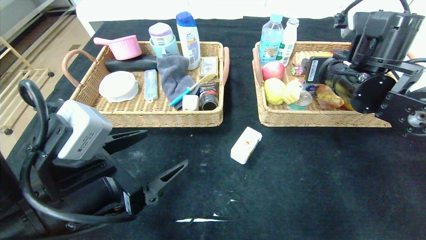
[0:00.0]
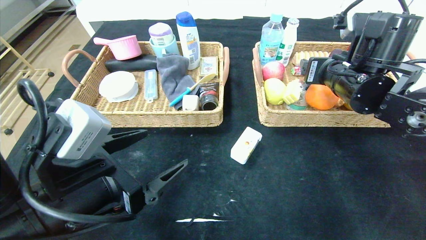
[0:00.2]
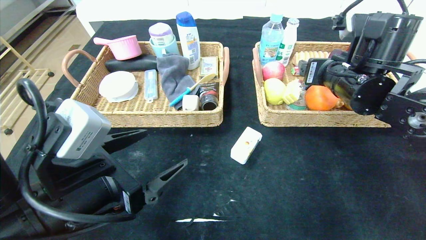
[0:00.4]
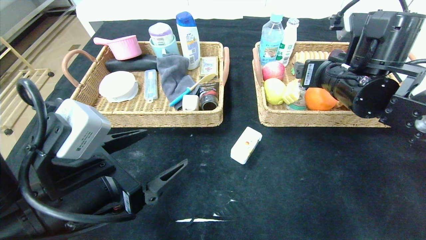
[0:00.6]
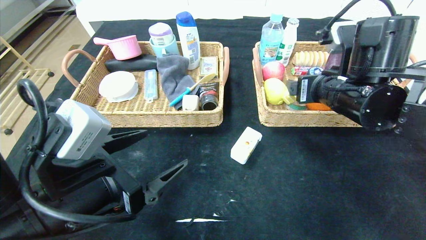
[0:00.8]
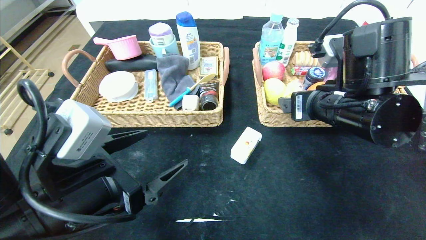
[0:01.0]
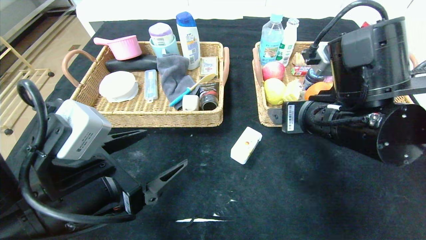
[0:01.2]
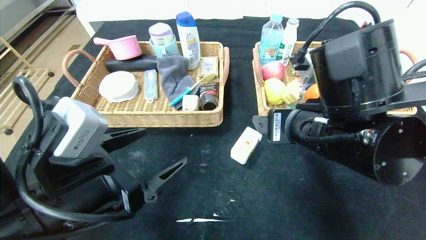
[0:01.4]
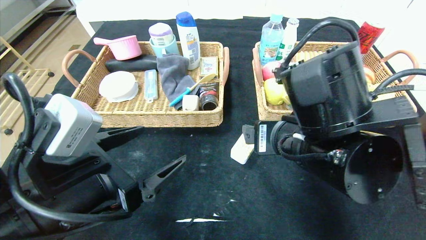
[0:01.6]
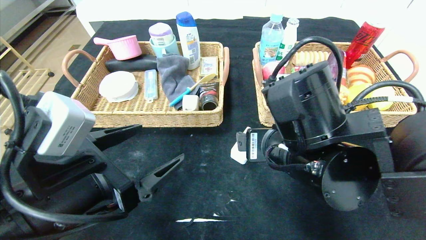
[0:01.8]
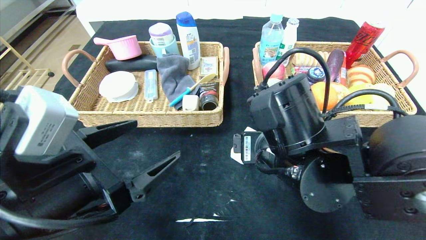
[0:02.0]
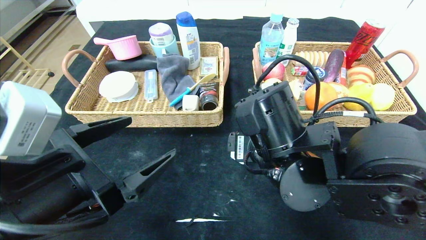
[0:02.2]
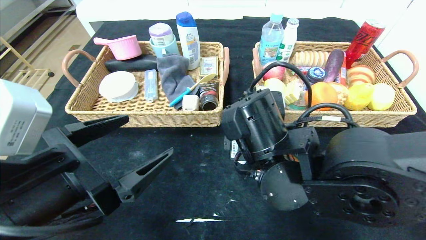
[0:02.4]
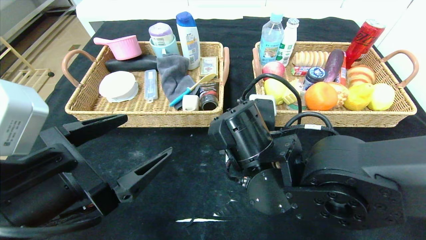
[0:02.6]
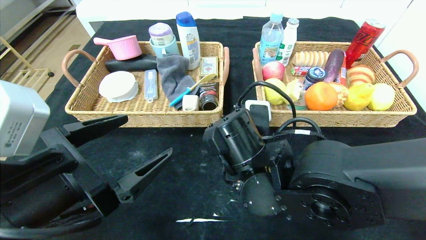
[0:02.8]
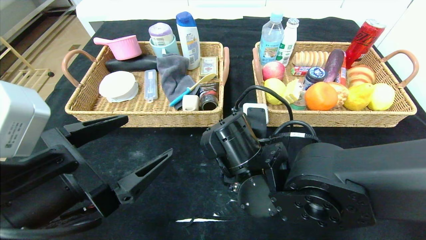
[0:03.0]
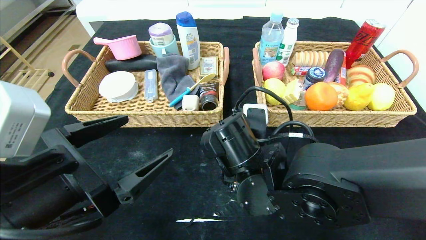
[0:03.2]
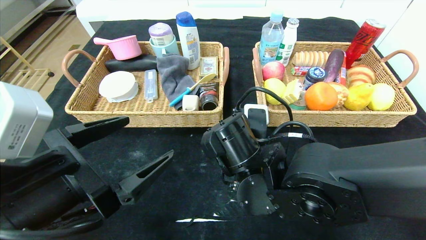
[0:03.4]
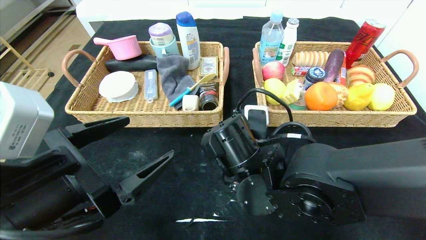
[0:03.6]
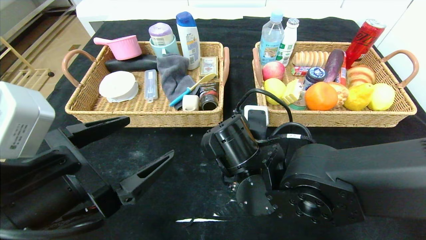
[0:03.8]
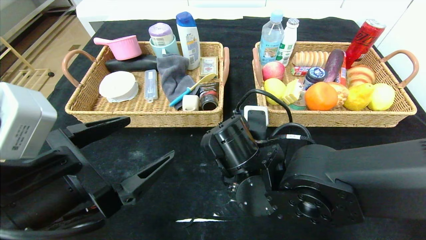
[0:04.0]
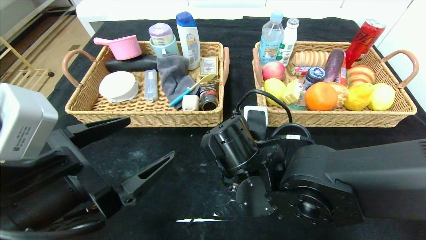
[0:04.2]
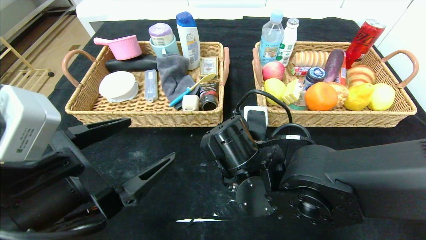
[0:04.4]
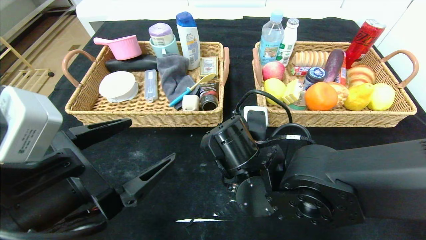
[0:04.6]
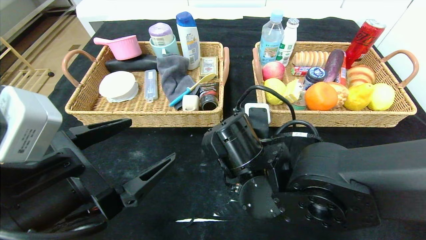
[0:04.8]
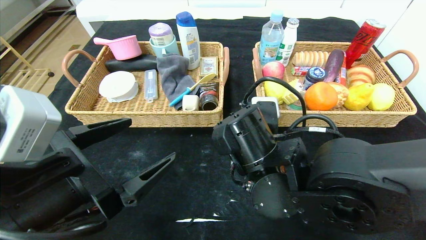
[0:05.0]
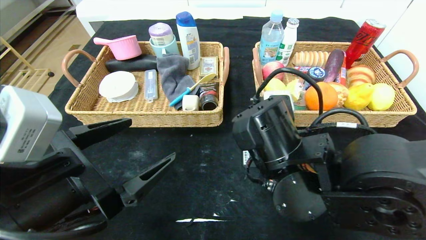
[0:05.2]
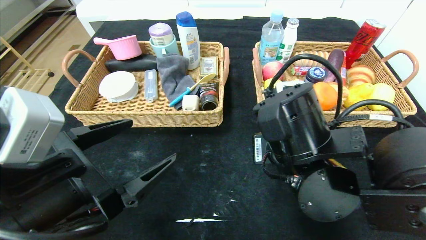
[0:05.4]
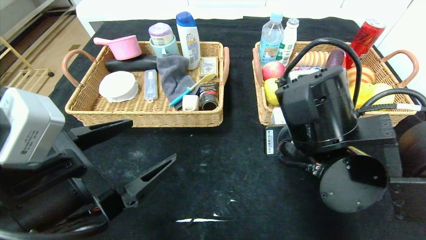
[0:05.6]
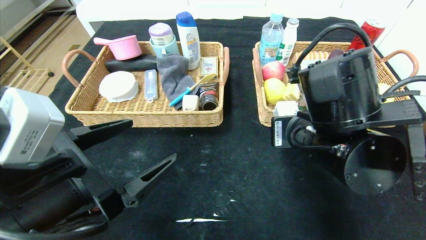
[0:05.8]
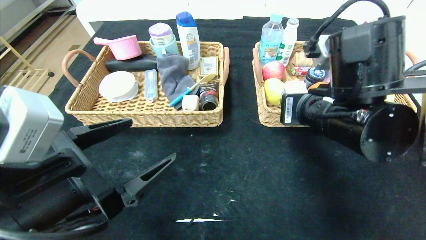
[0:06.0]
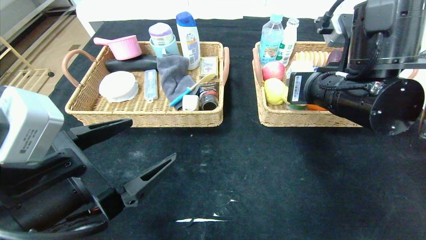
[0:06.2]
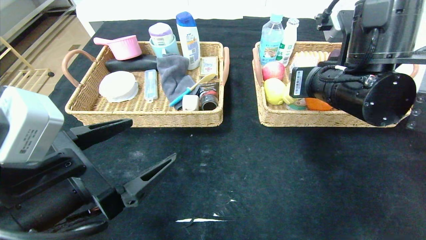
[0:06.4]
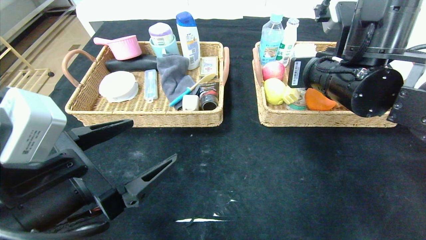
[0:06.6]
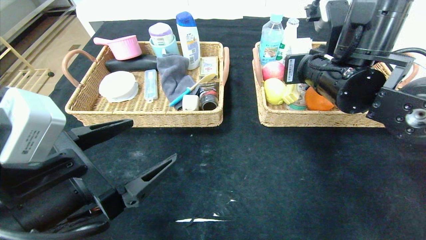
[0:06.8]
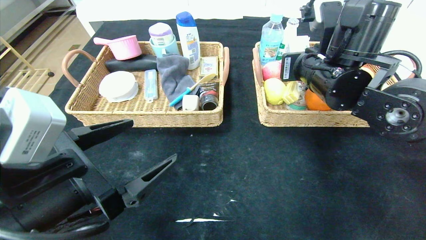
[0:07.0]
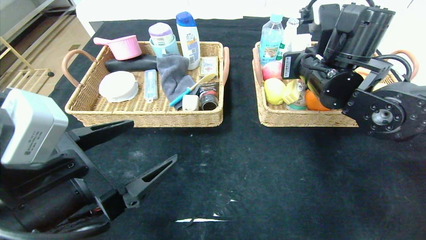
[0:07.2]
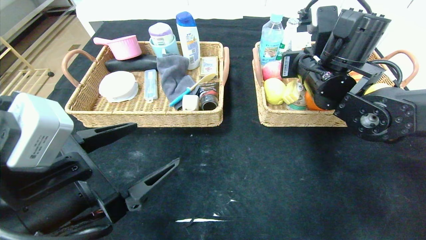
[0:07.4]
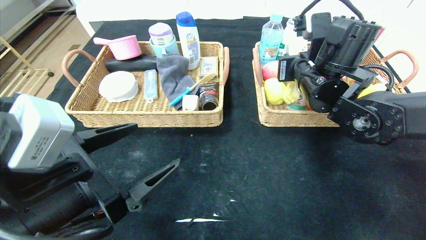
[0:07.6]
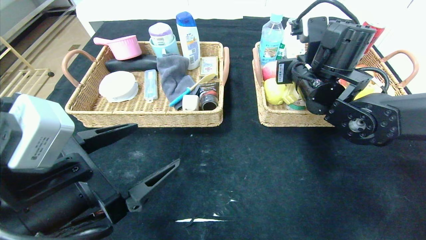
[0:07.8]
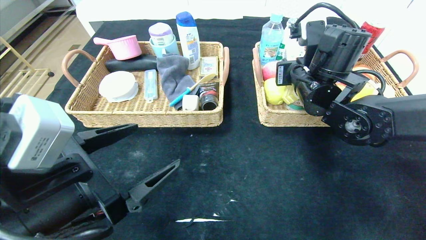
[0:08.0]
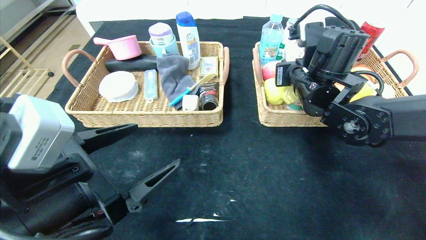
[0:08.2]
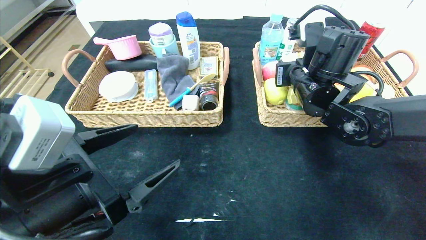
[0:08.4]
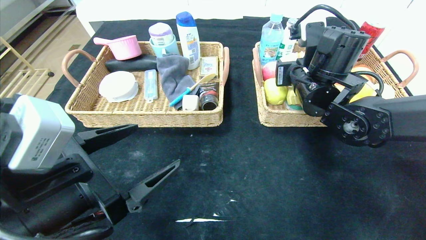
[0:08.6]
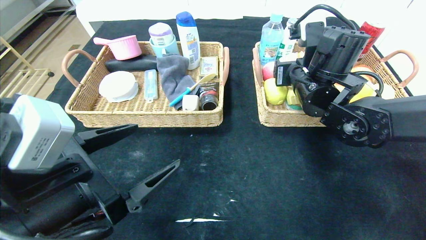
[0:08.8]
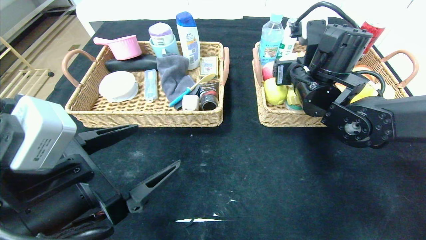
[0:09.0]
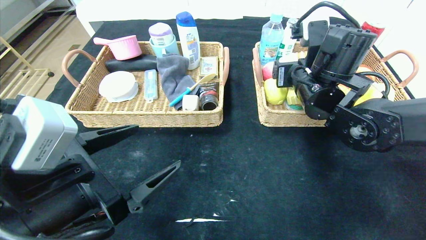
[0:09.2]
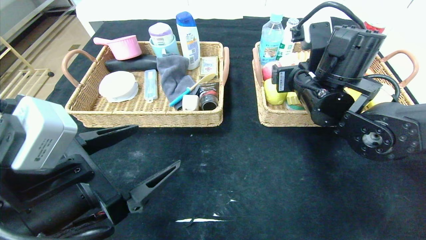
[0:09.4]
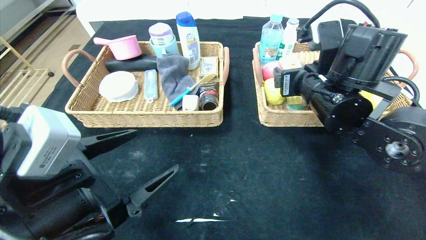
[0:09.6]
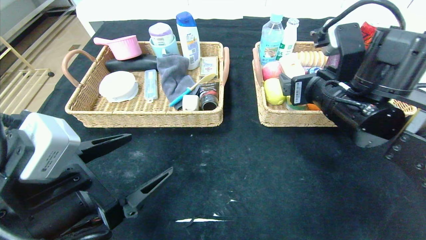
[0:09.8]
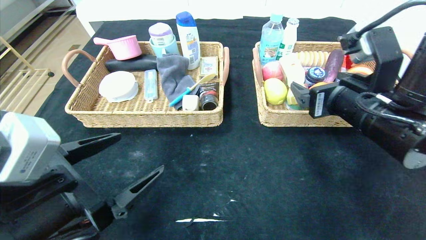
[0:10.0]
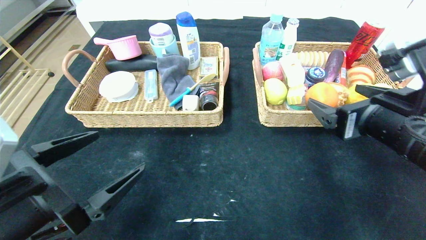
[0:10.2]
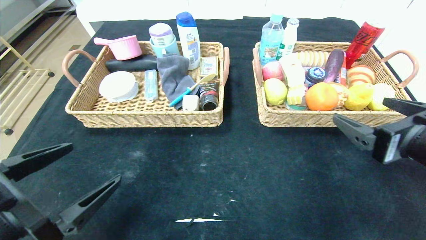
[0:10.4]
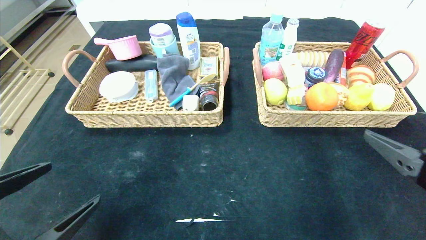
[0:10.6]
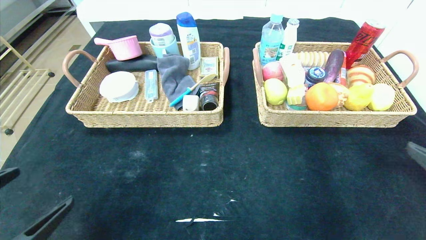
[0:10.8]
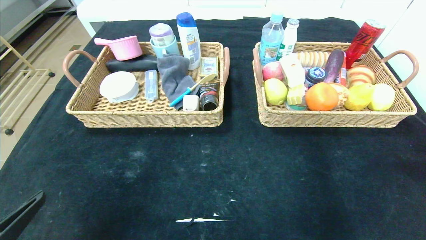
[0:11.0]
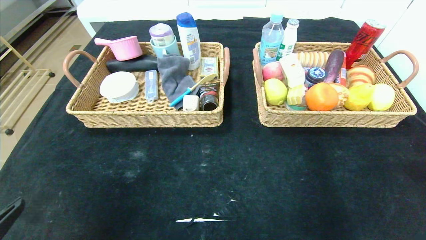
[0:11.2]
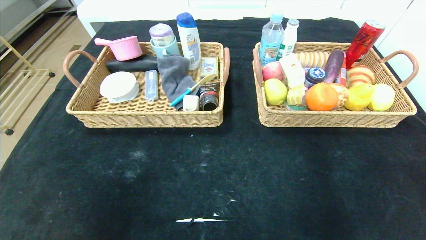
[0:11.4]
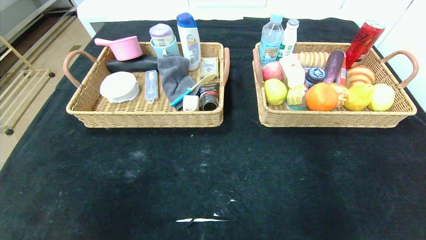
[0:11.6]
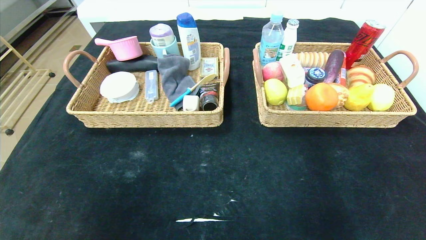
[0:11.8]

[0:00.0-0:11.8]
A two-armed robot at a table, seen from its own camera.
Step, 0:01.6 to 0:10.6: Pick up the square chewing gum and put it in the right basket.
0:00.0 to 0:01.4: The right gripper travels backward and to the left by approximately 15 cm.
0:01.4 to 0:03.0: The right gripper heads downward and to the left, covering approximately 10 cm.
0:03.0 to 0:04.4: The right gripper closes up.
0:04.4 to 0:06.0: The right gripper goes approximately 15 cm to the right and upward.
0:06.0 to 0:07.4: The right gripper heads forward, covering about 10 cm.
0:07.4 to 0:08.8: The right gripper opens.
0:08.8 to 0:10.4: The left gripper goes about 5 cm to the left, while the right gripper shifts approximately 20 cm backward and to the right.
0:10.4 to 0:11.8: The left gripper is displaced backward by some 15 cm; the right gripper is displaced backward and to the right by about 25 cm.
